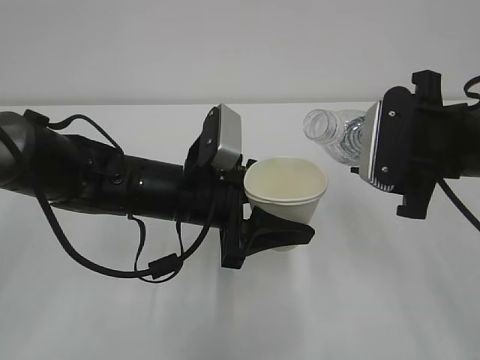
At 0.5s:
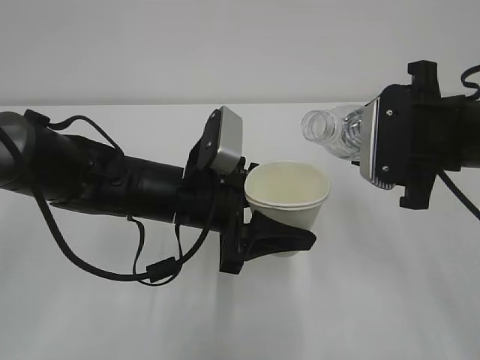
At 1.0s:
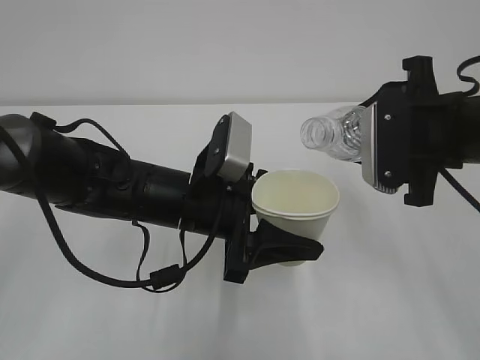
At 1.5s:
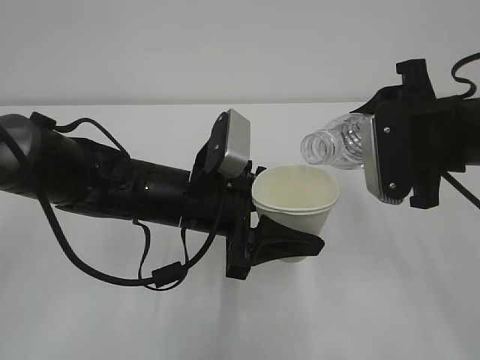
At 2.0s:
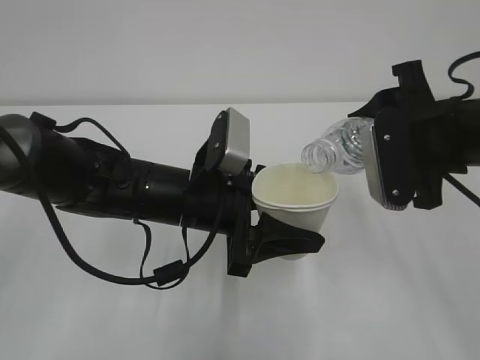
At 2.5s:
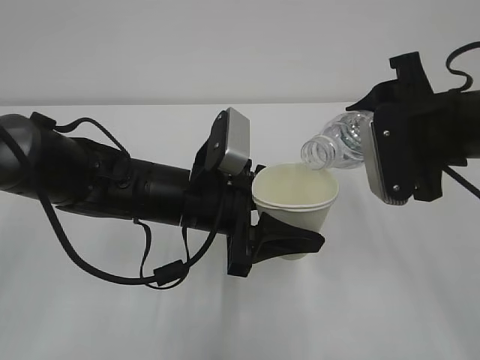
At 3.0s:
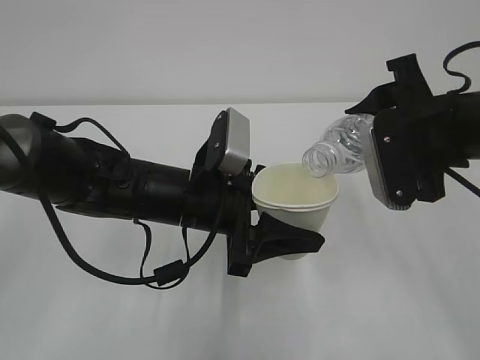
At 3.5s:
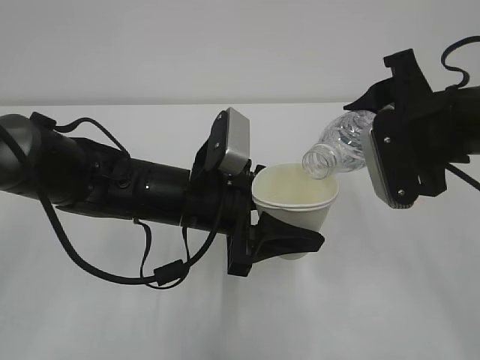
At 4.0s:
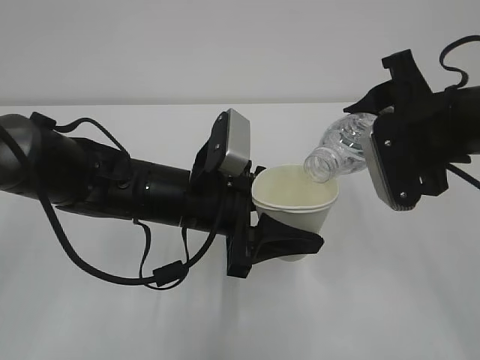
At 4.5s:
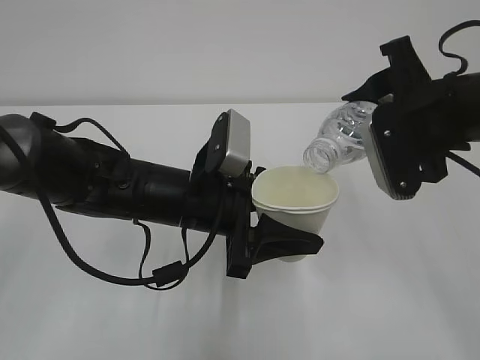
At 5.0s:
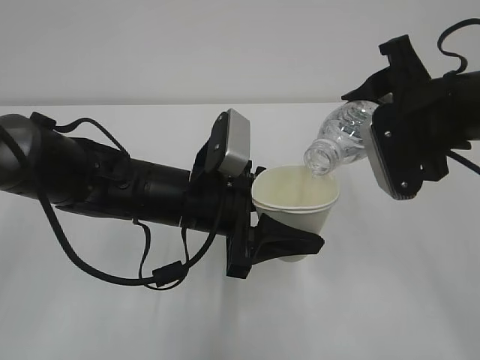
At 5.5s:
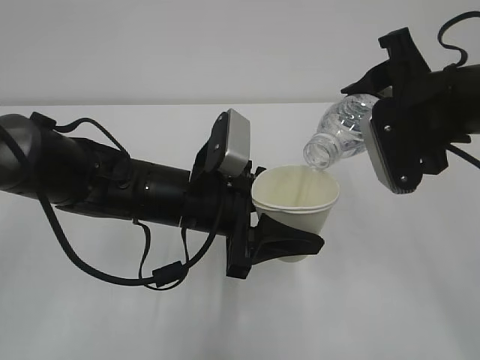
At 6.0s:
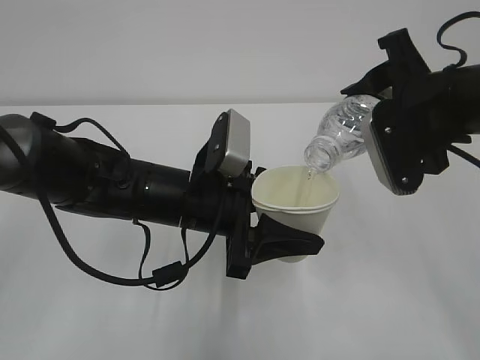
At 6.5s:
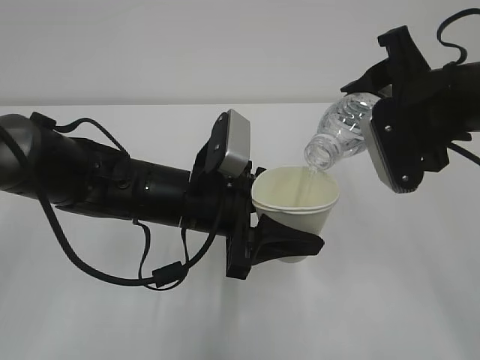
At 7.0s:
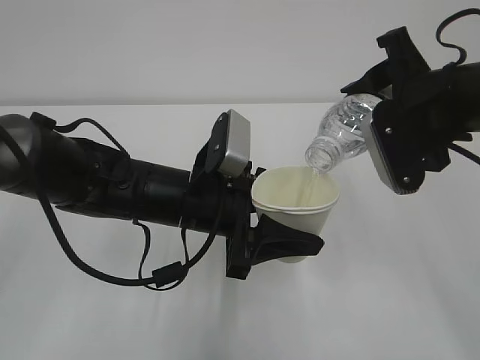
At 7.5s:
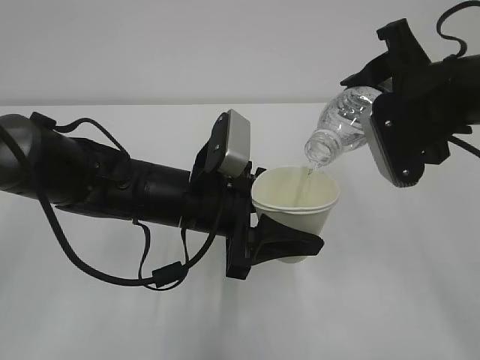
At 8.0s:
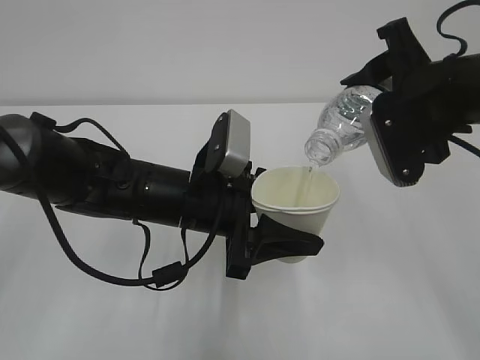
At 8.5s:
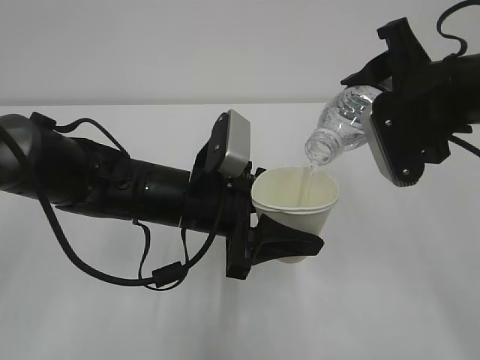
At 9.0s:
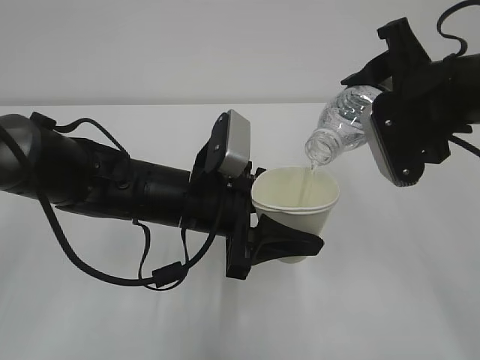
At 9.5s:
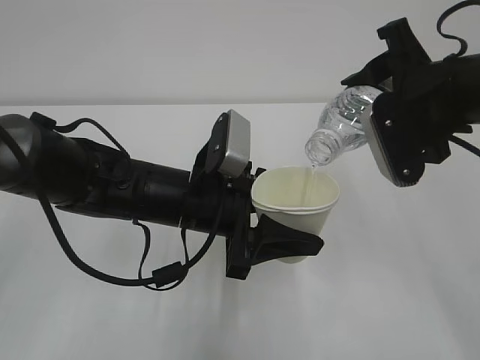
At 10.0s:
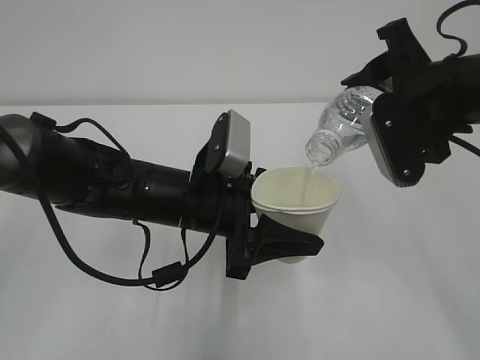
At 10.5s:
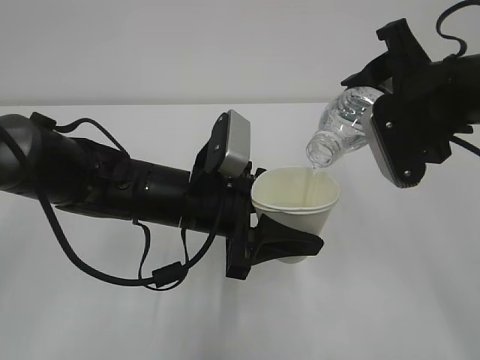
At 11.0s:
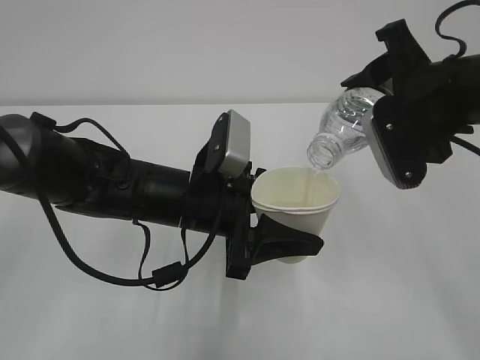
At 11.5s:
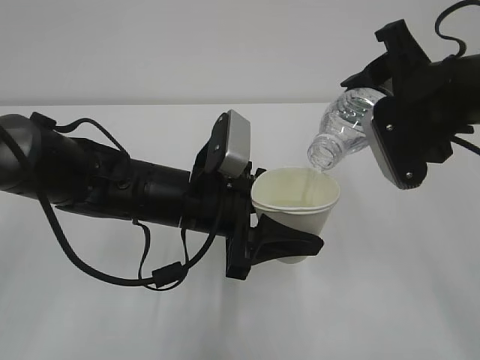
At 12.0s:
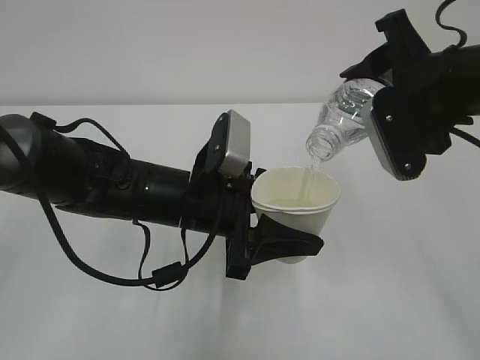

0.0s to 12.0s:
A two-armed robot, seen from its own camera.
2.0s to 6.0s: The grippers move only a little.
6.0s to 10.0s: Neither gripper changes place.
10.0s to 12.0s: Both grippers stay put.

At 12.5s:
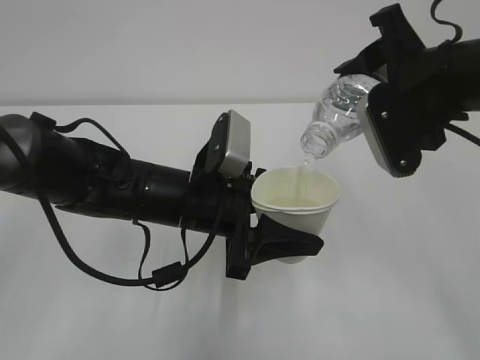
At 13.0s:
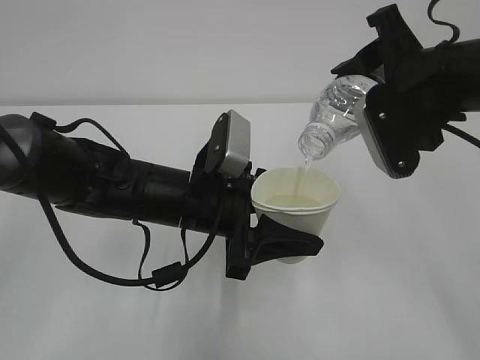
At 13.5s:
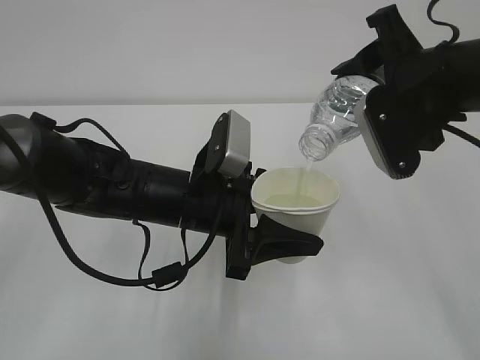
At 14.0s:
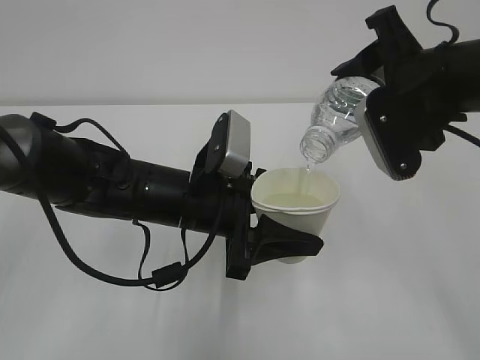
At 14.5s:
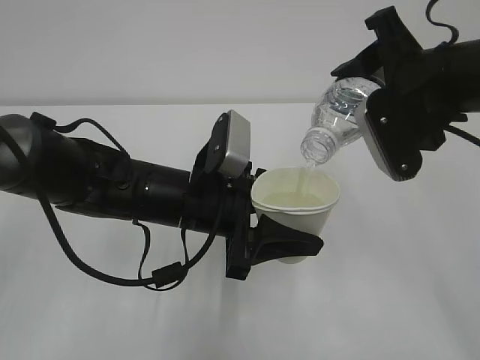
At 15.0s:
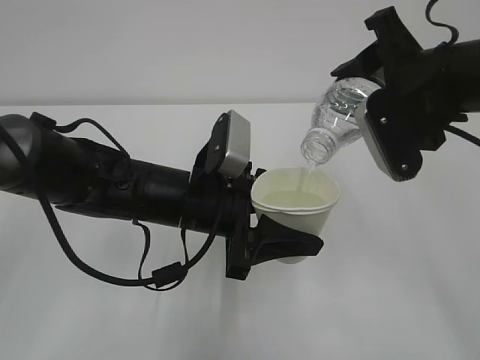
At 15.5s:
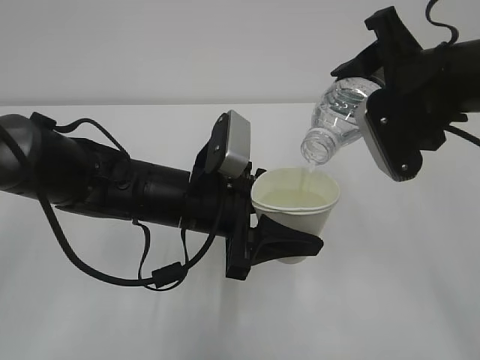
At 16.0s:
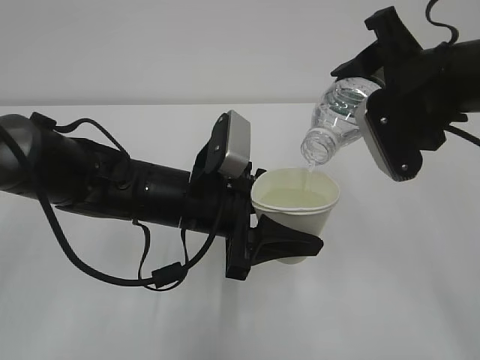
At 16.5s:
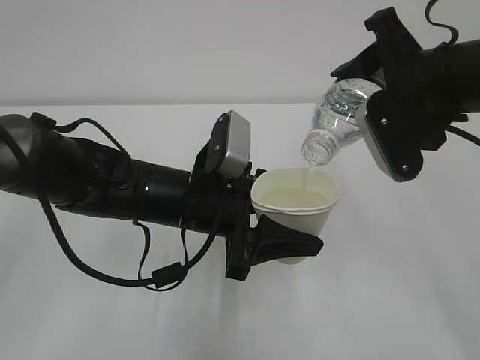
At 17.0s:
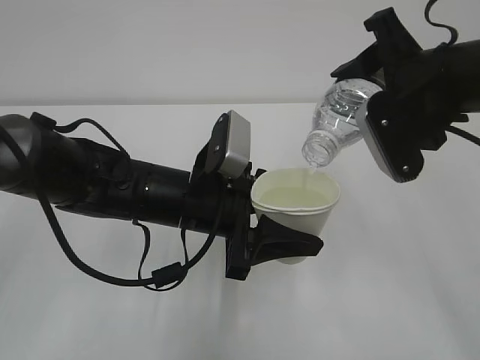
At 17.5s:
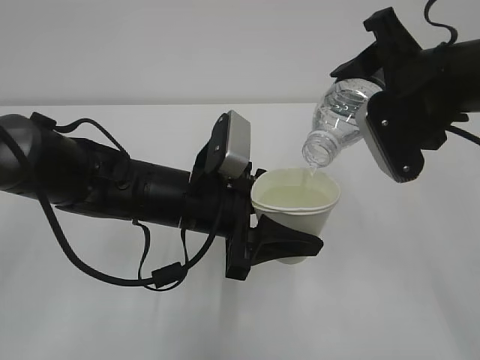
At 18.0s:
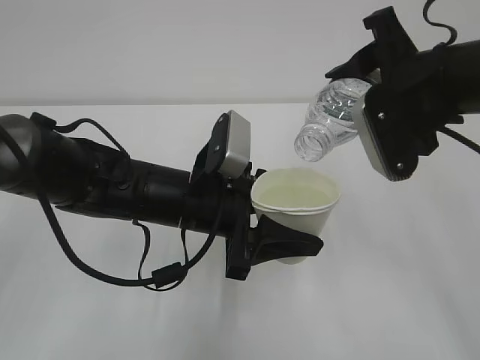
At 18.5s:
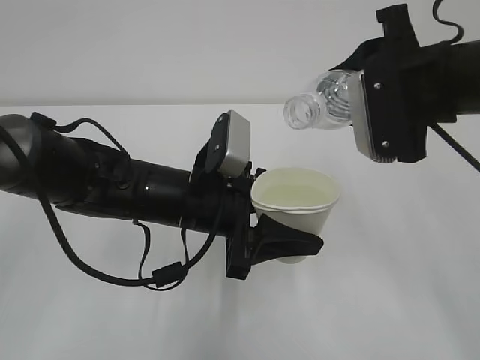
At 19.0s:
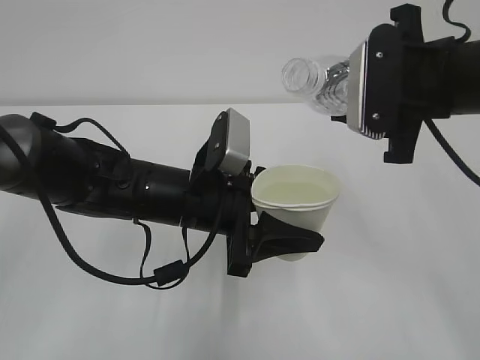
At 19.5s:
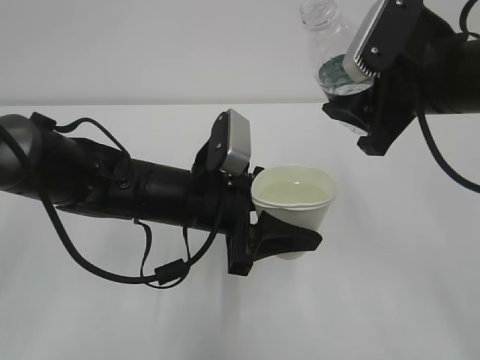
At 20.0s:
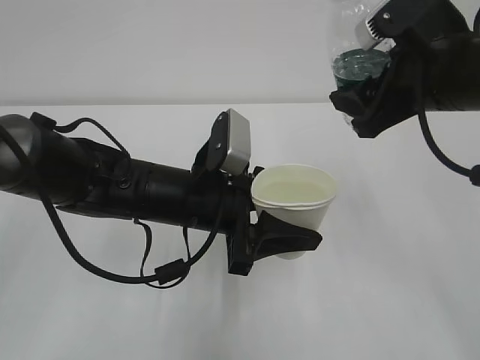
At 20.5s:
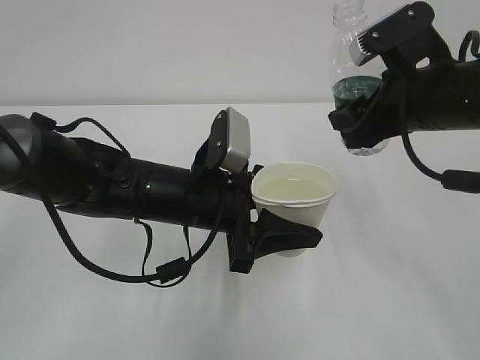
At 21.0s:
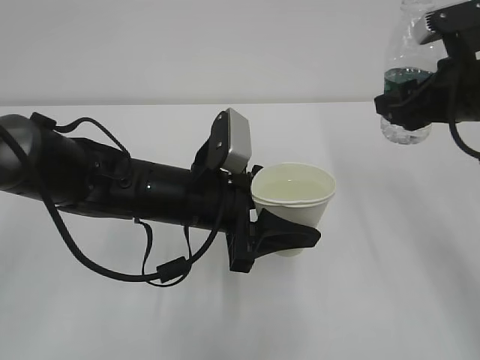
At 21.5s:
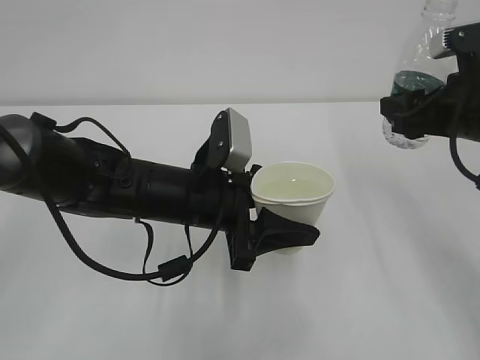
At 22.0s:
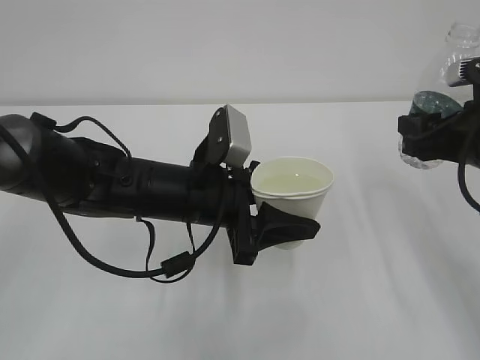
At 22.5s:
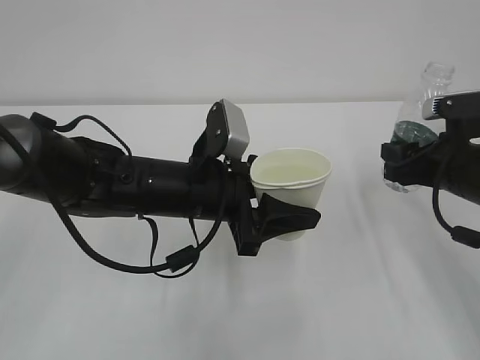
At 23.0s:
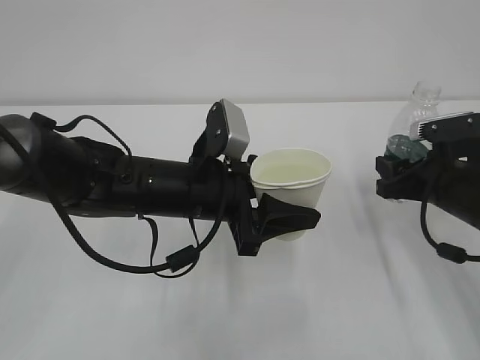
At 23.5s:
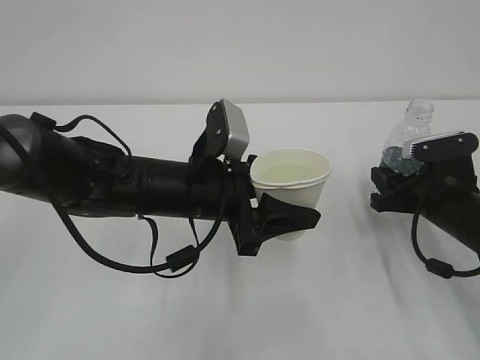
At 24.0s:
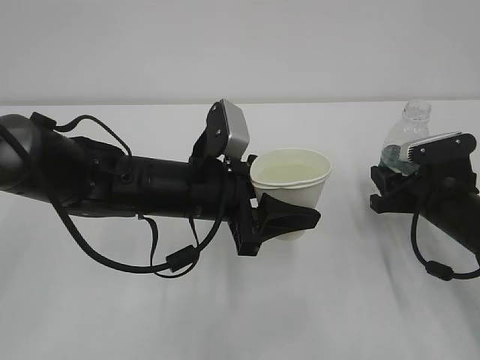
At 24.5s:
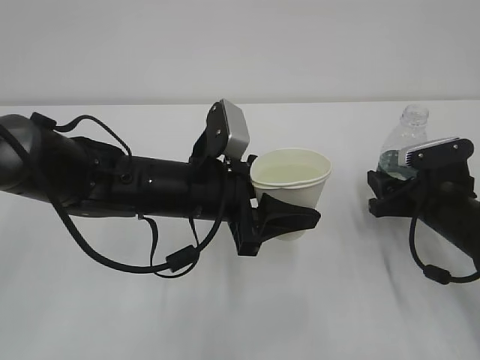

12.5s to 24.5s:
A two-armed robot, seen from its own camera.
12.5s to 16.5s: Both grippers stay about where they are.
20.5s to 22.5s: The right gripper is displaced downward and to the right by approximately 10 cm.
22.5s to 24.5s: The right gripper moves downward, about 10 cm, and opens its fingers.

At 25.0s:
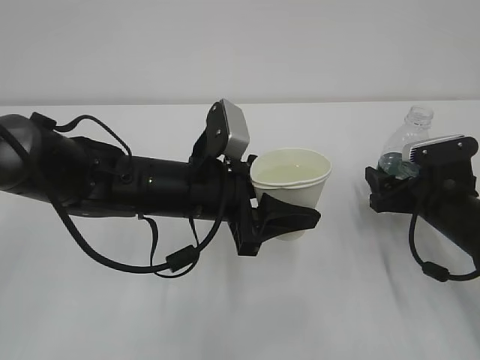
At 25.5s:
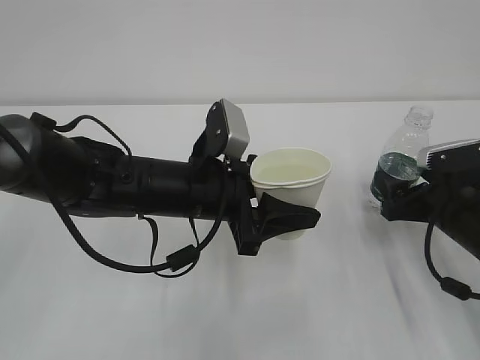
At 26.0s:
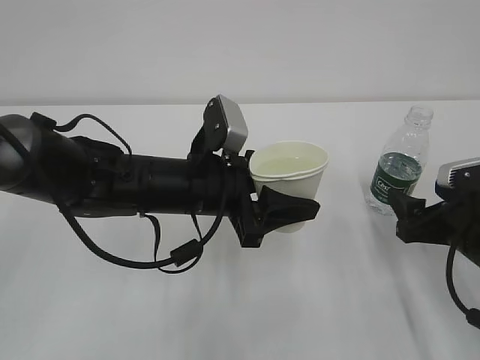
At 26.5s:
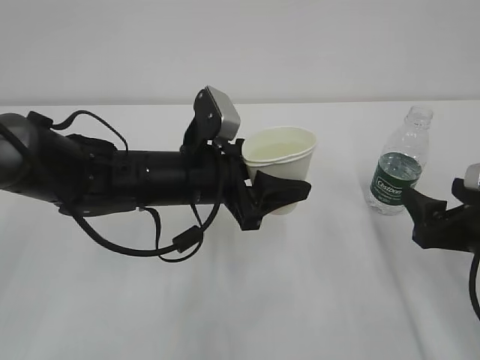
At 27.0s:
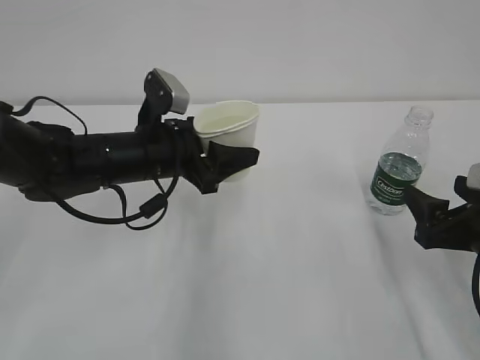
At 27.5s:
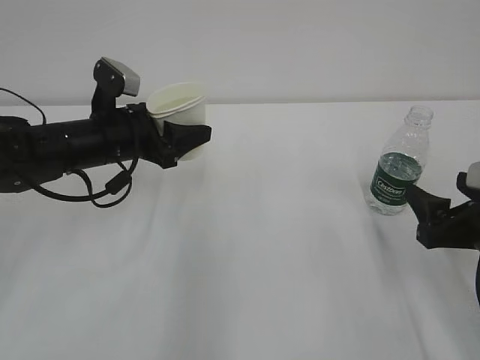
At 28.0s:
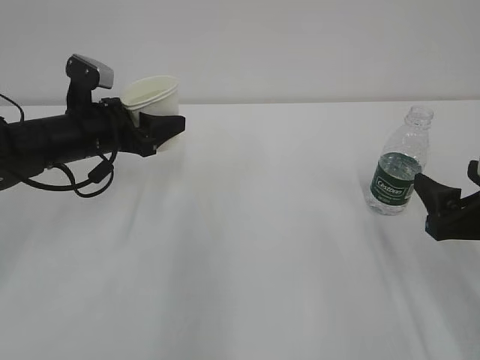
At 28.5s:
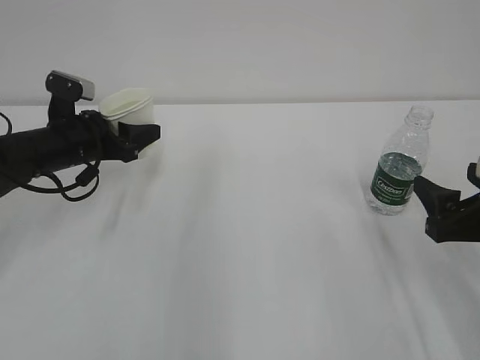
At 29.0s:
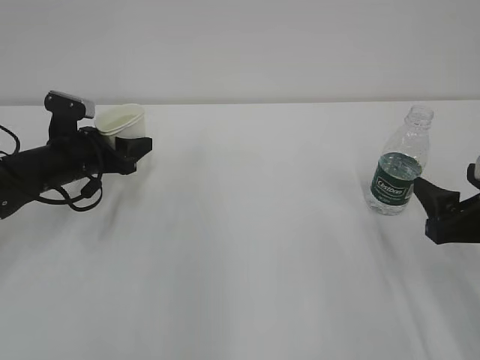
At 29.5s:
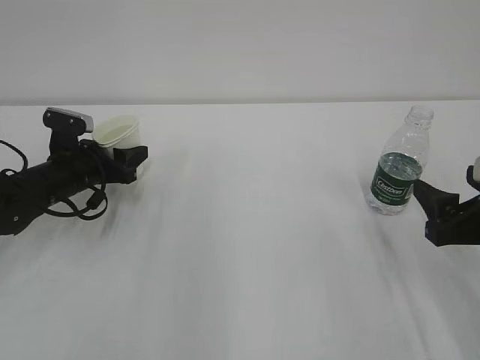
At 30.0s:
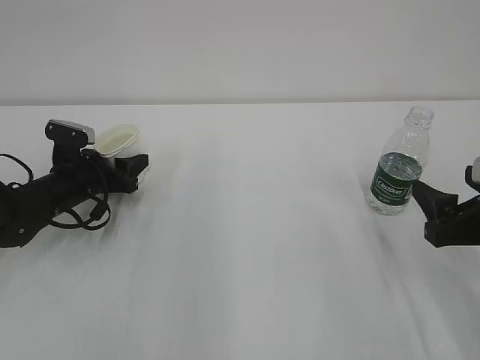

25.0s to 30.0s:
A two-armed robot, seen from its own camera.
25.0s to 27.5s: The left gripper heads to the left and forward, covering roughly 15 cm. The right gripper travels backward and upward by approximately 10 cm.
27.5s to 30.0s: The left gripper shifts roughly 15 cm downward and to the left.
